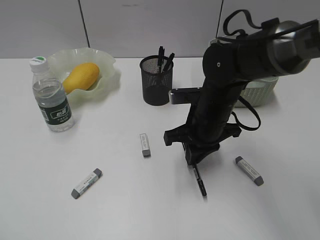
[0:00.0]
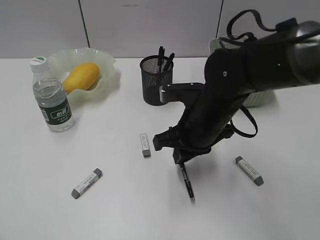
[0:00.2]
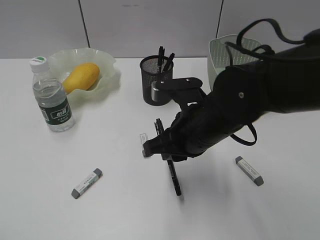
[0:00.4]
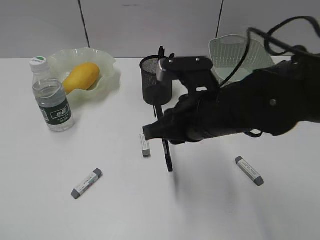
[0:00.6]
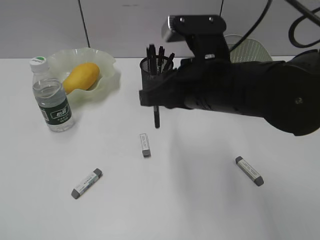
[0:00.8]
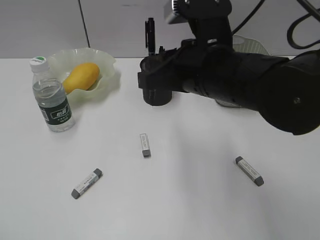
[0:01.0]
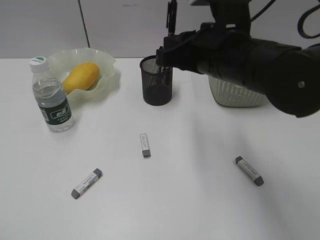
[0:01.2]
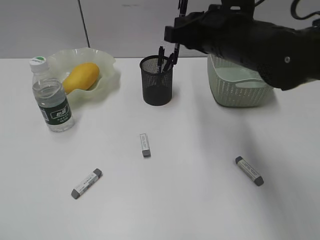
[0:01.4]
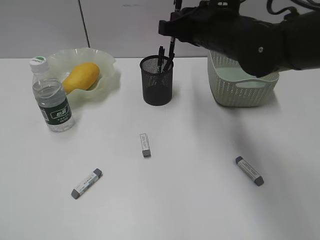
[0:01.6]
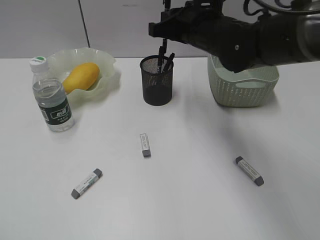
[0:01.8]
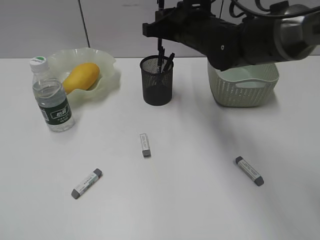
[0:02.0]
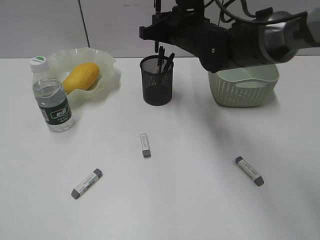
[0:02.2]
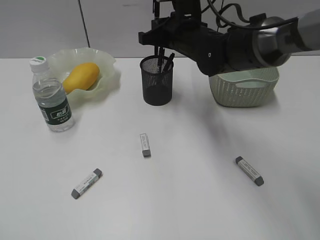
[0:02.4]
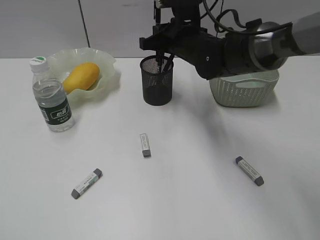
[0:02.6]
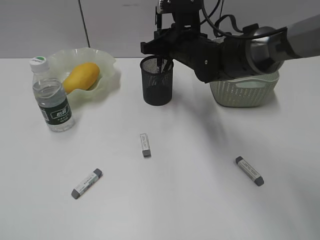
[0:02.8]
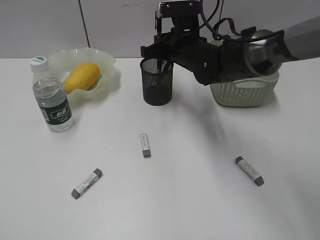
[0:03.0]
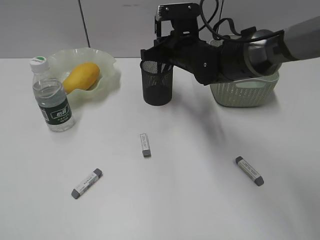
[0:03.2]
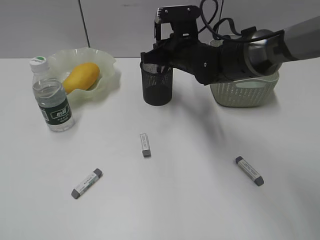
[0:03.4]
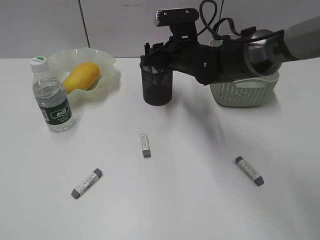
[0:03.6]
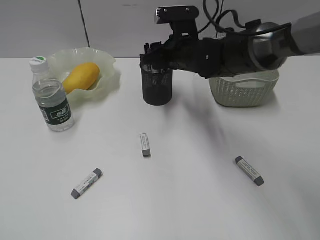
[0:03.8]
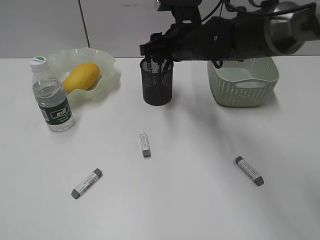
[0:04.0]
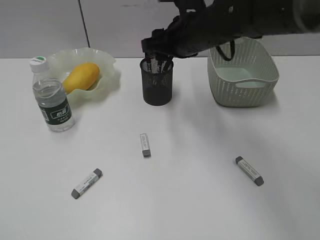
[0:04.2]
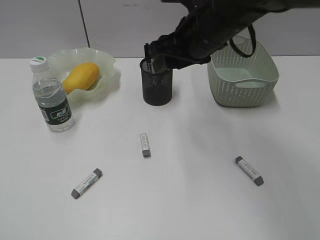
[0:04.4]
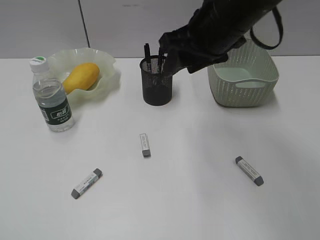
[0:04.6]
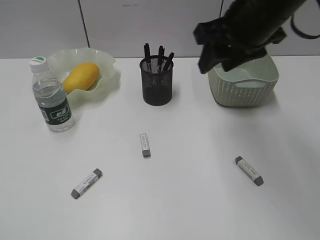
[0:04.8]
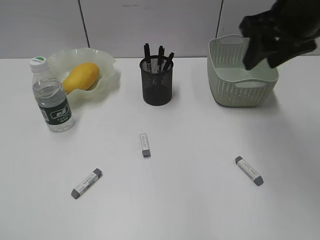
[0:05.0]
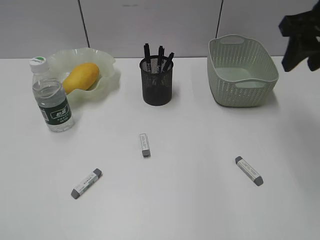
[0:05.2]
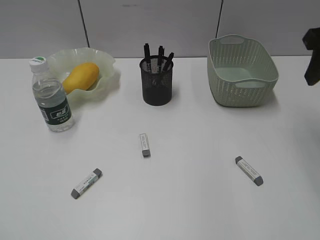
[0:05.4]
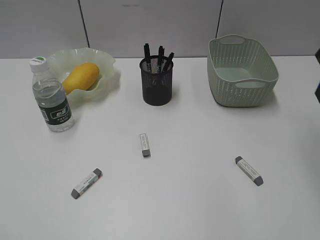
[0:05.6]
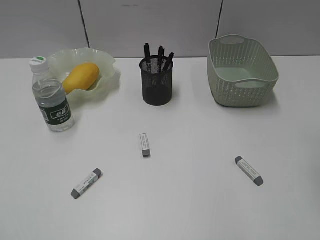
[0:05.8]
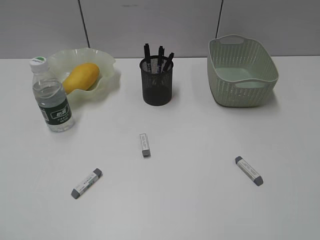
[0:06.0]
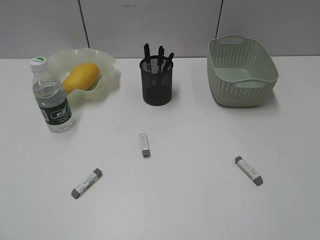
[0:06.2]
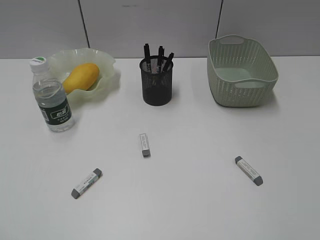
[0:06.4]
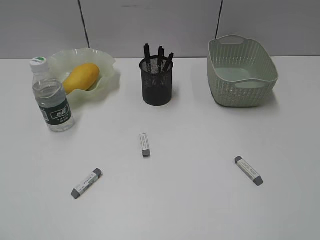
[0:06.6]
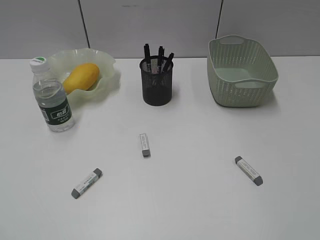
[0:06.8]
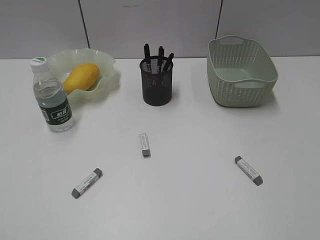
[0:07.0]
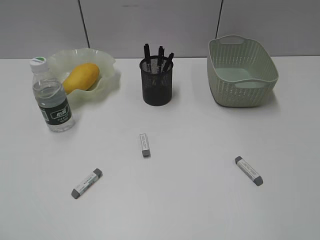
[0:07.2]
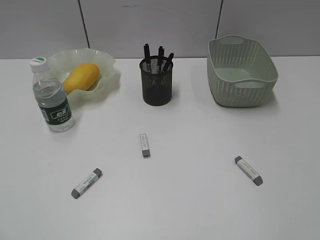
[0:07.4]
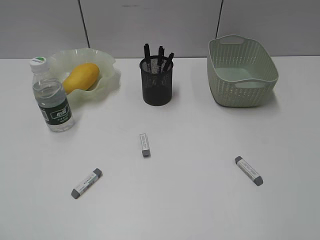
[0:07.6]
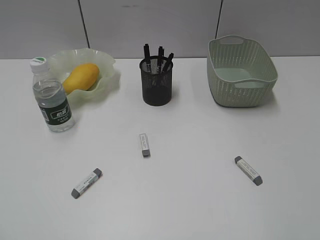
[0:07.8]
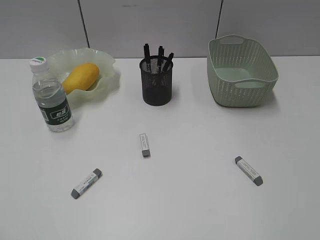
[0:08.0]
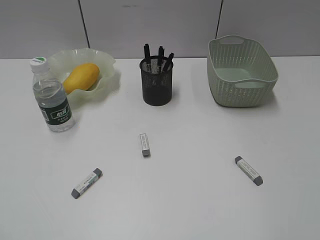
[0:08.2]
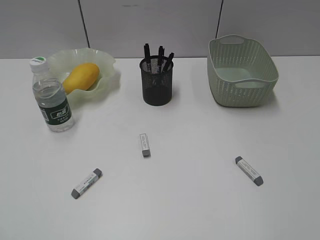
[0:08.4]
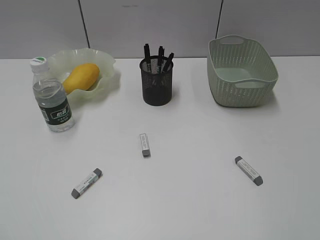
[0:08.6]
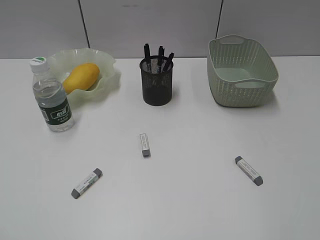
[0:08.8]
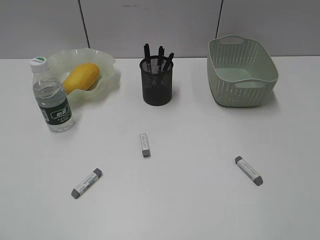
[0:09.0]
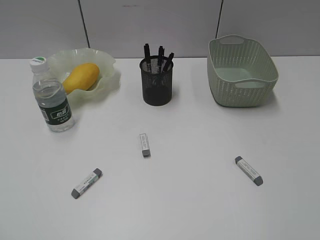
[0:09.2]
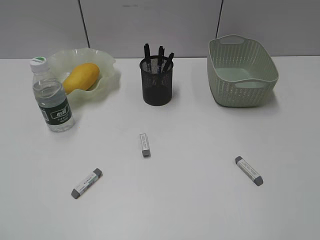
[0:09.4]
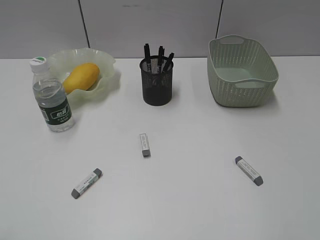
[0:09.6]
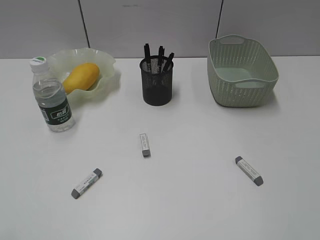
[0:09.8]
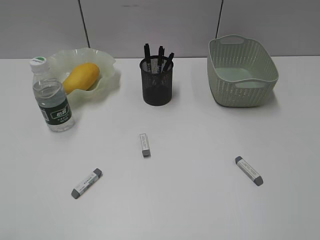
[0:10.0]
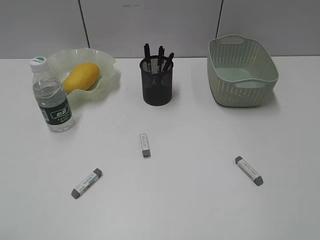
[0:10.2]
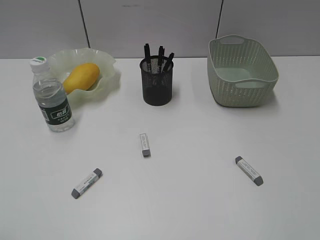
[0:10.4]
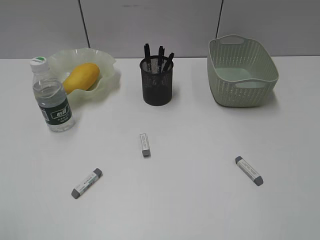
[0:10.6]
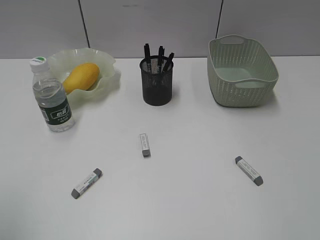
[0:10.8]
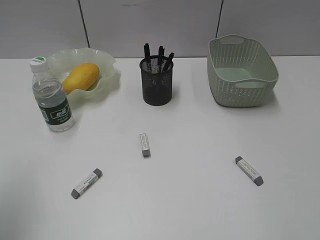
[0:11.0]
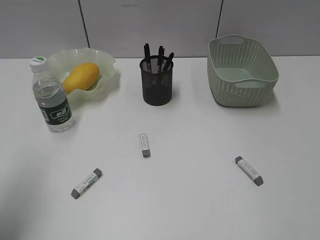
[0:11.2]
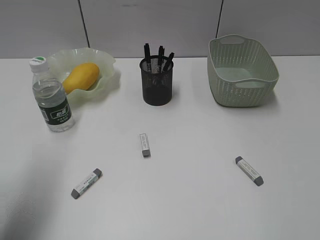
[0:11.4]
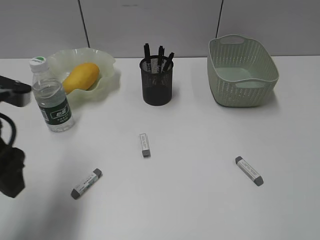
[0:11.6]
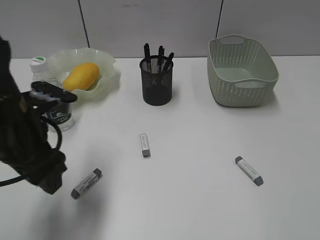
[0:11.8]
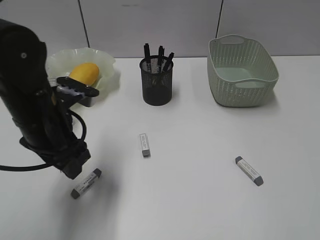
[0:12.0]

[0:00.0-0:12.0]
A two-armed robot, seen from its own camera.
Step, 0:00.0 to 0:03.8: Place the black pen in pen holder with right gripper.
0:00.0 to 0:01.6: The right gripper is displaced upward by roughly 10 cm.
0:01.6 to 0:03.0: The right gripper goes approximately 10 cm downward and forward.
0:03.0 to 0:04.4: The right gripper is displaced upward and backward by approximately 10 cm, and opens up.
0:04.4 to 0:06.0: The right gripper goes some 30 cm to the right and backward.
0:07.6 to 0:09.0: Neither gripper changes place.
0:10.4 to 0:12.0: The left gripper goes approximately 30 cm forward and to the right.

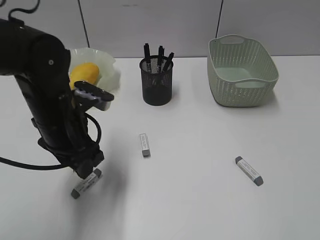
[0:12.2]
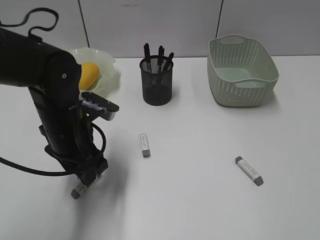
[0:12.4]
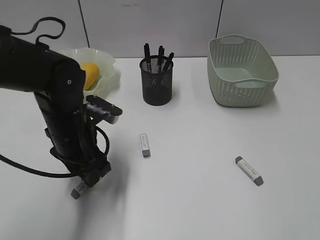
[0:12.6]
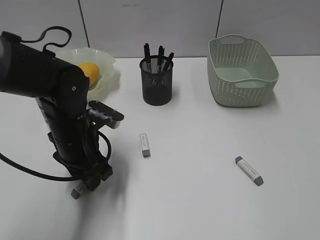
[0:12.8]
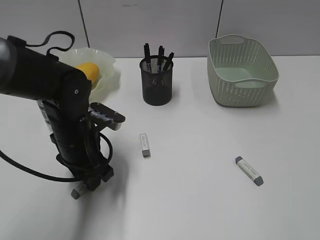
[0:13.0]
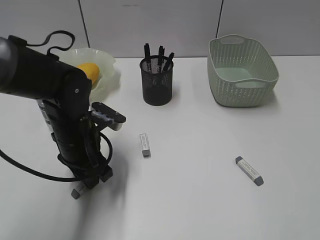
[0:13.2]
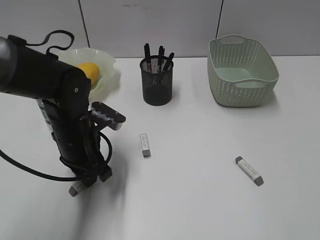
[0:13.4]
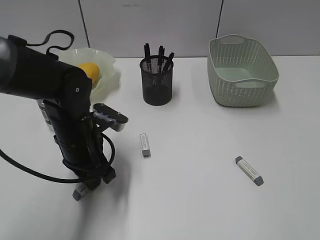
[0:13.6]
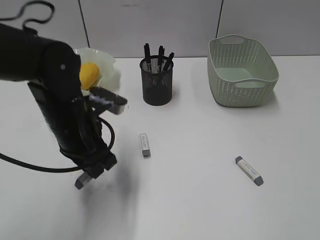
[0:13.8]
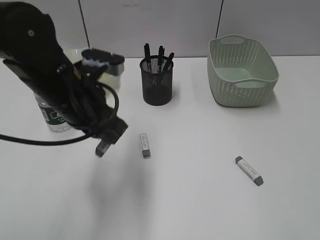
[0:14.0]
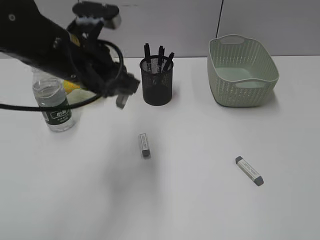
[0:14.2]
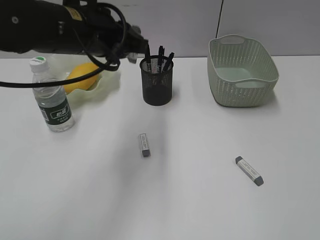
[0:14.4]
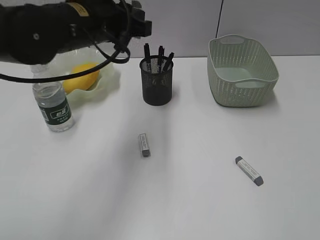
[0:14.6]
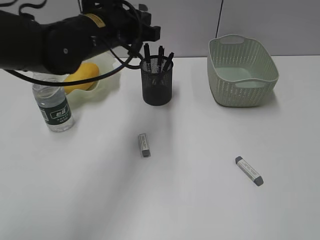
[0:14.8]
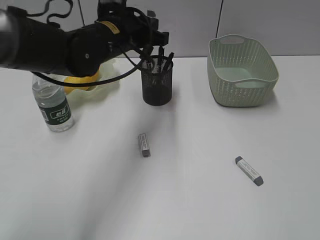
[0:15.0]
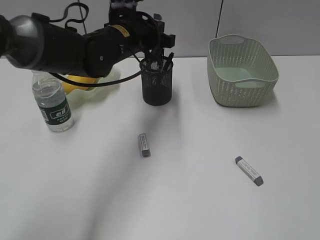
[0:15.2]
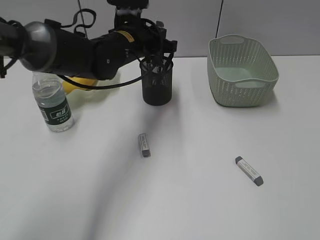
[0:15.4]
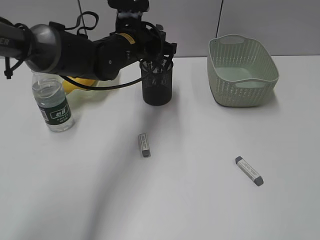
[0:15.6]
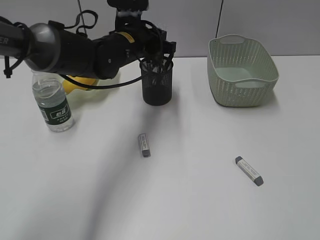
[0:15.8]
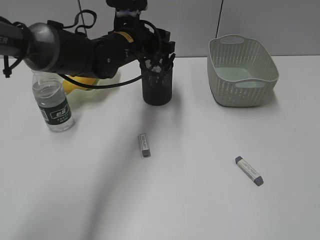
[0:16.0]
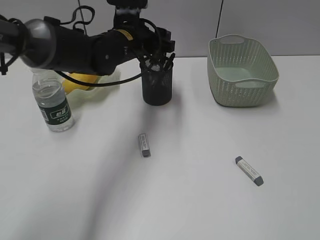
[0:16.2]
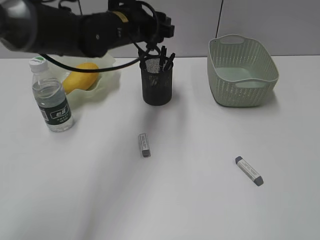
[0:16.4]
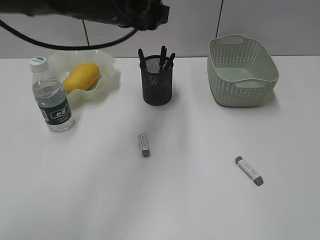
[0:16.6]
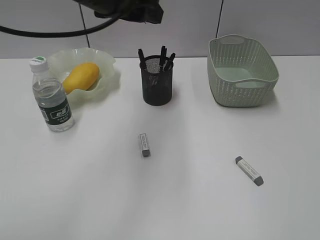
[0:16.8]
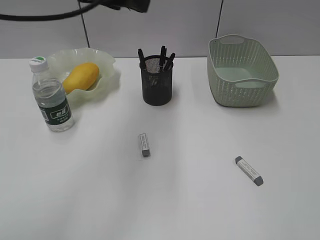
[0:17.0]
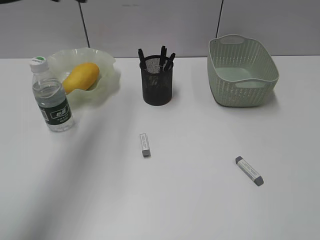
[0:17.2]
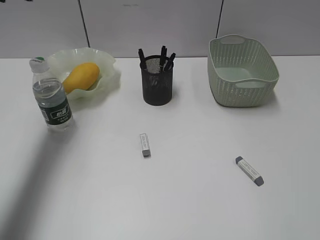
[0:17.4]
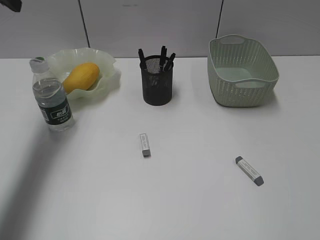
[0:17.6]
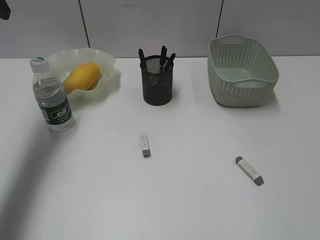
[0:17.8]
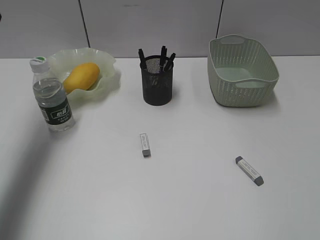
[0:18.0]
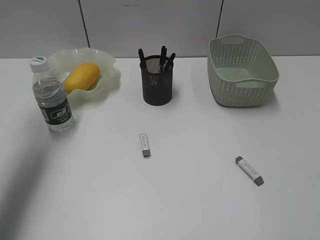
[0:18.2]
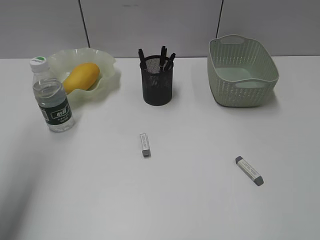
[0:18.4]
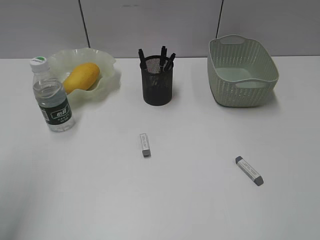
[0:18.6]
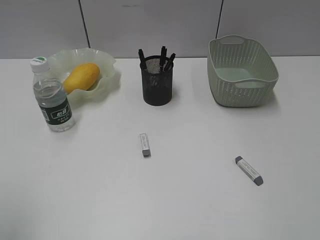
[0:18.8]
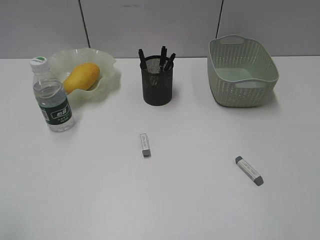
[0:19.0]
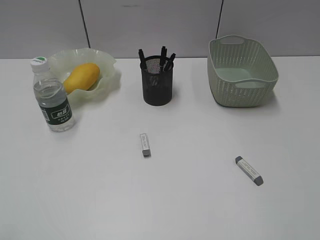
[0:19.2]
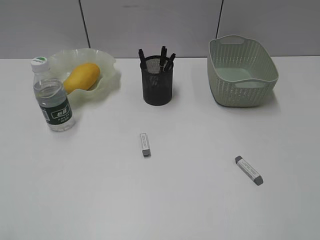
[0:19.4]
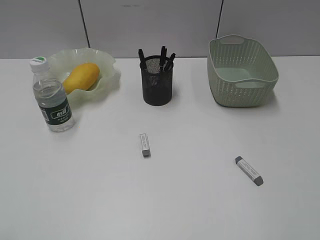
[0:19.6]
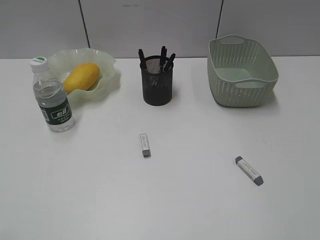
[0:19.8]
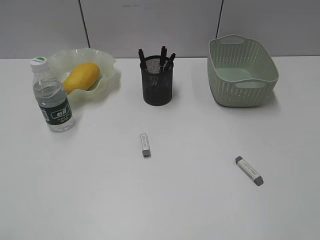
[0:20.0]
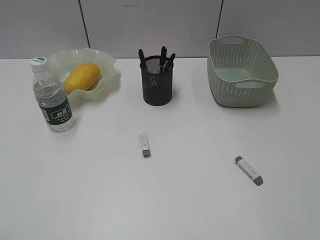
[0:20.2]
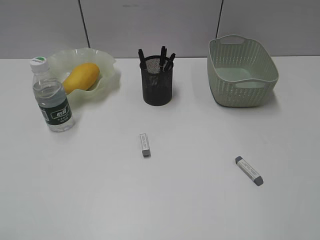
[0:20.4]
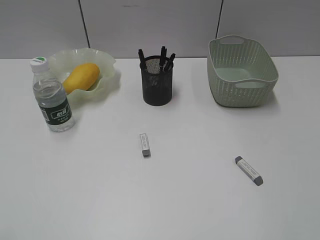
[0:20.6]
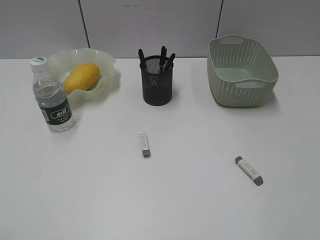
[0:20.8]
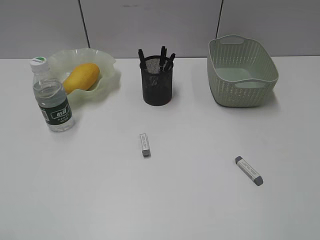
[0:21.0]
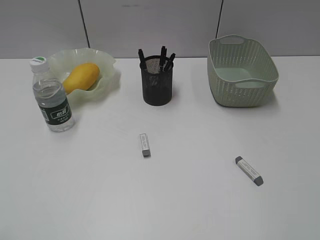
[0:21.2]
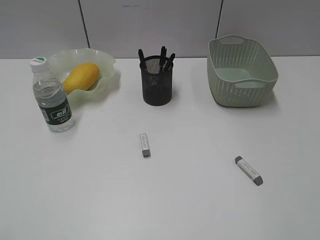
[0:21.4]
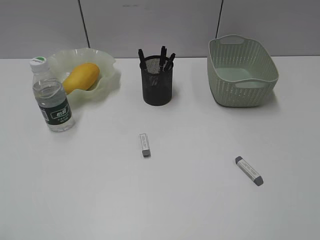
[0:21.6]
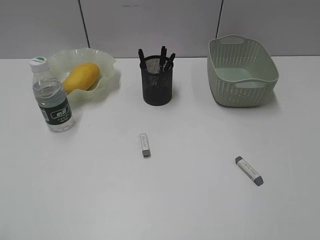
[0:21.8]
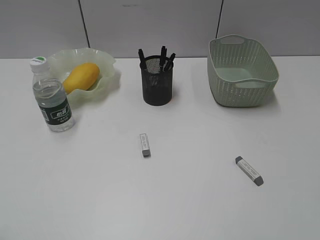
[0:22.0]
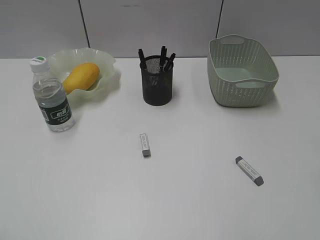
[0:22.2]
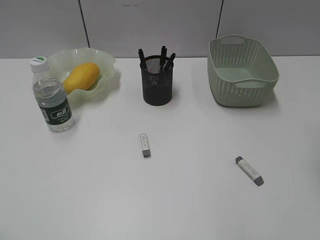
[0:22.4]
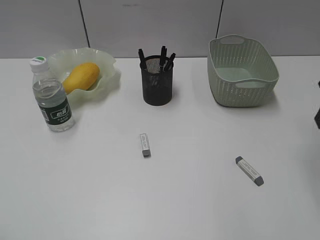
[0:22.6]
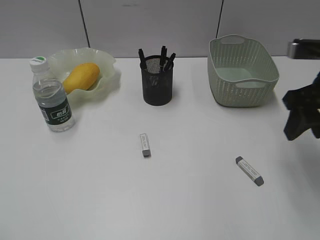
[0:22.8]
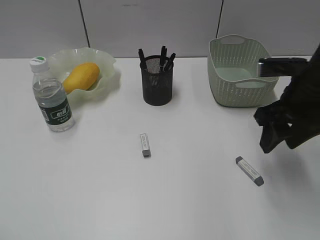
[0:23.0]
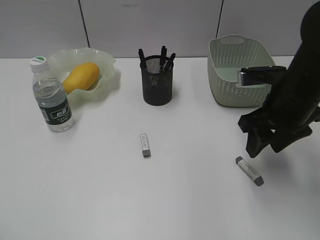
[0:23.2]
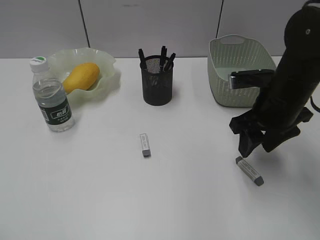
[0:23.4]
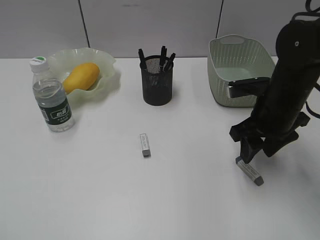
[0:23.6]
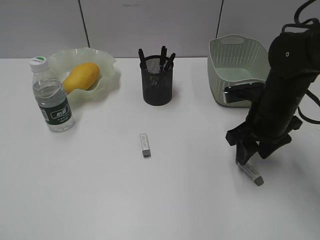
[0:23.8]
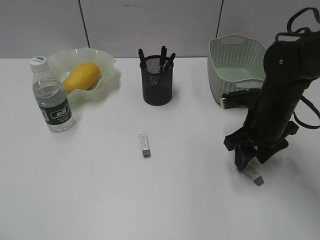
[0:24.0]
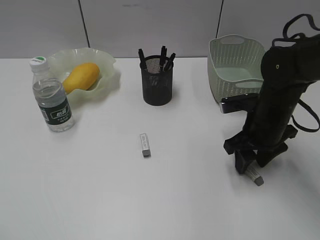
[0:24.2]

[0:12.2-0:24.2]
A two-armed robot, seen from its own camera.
Step, 0:13.6 to 0:16.2: Place the eraser in pen holder with left gripper.
0:12.2 to 0:13.8: The left gripper closes.
0:13.8 to 0:15.2: The left gripper goes about 15 cm forward, to the right and upward.
0:15.2 to 0:16.6: The left gripper shifts about 5 cm upward, and opens.
0:16.6 to 0:18.2: The left gripper is displaced to the left by roughly 25 cm.
0:18.2 to 0:19.8: The left gripper is displaced backward by some 35 cm.
0:19.8 to 0:21.2: Neither gripper changes place.
0:22.6 to 0:24.2: The right gripper moves downward and to the left, approximately 20 cm.
